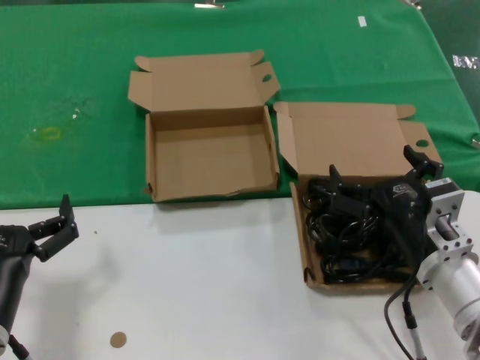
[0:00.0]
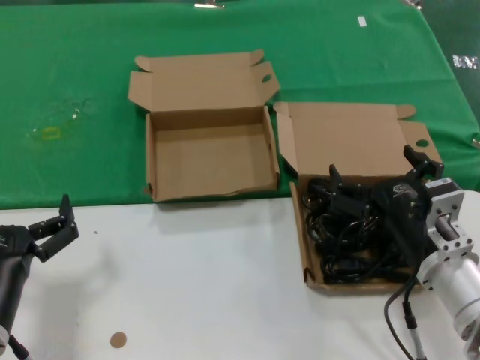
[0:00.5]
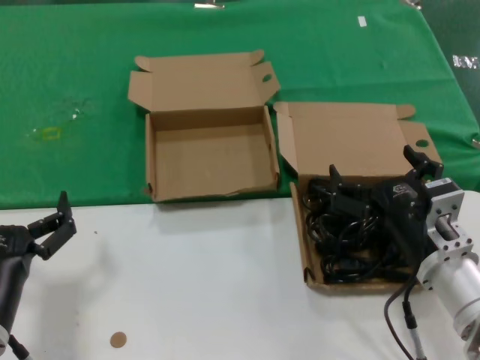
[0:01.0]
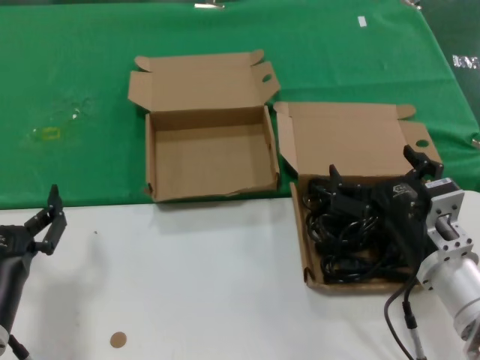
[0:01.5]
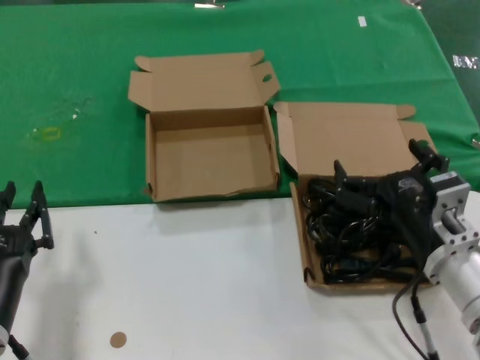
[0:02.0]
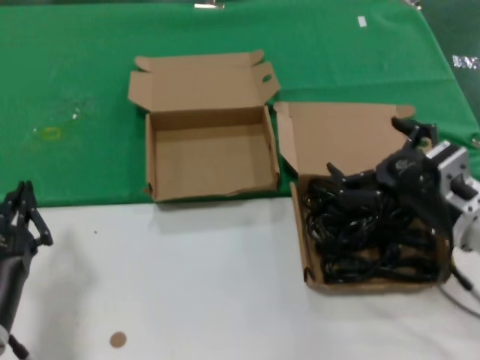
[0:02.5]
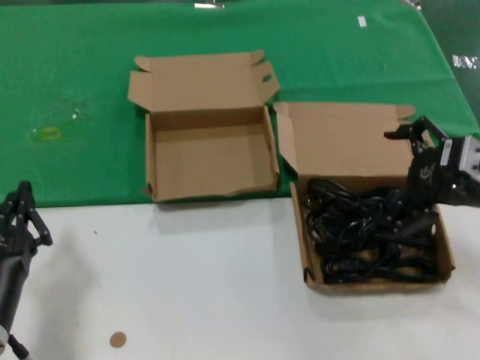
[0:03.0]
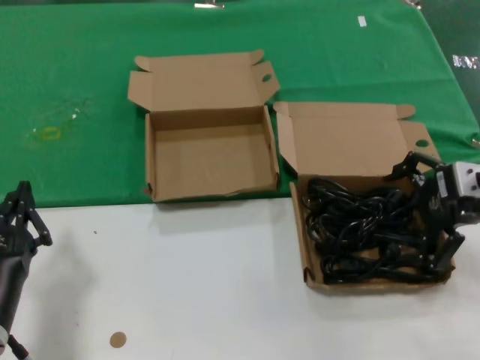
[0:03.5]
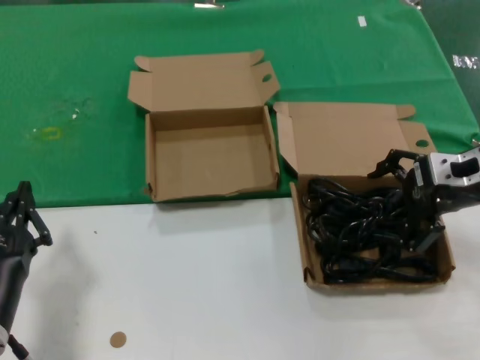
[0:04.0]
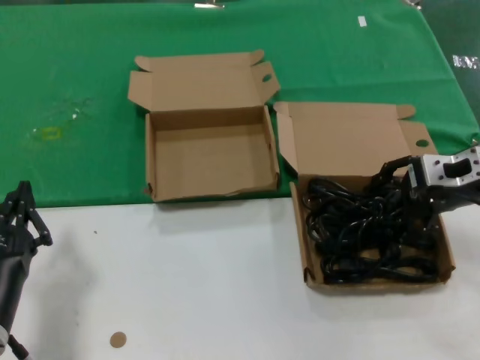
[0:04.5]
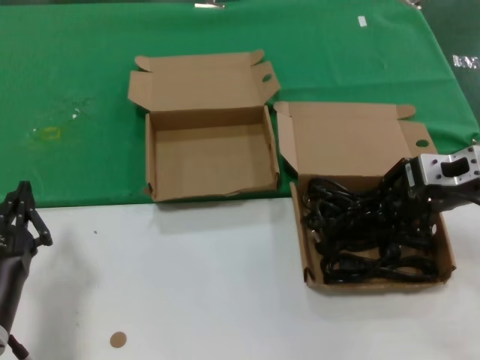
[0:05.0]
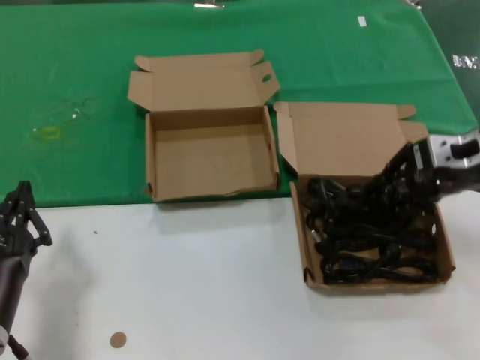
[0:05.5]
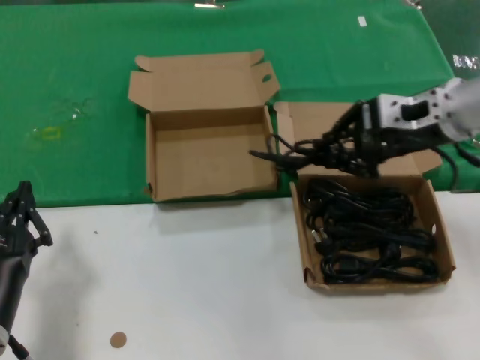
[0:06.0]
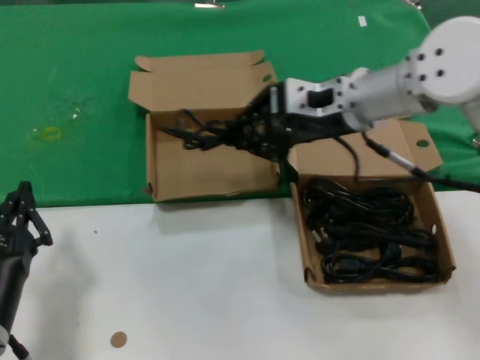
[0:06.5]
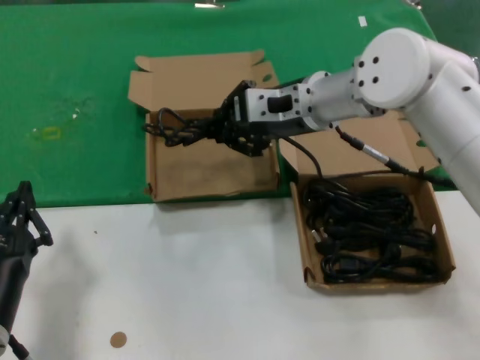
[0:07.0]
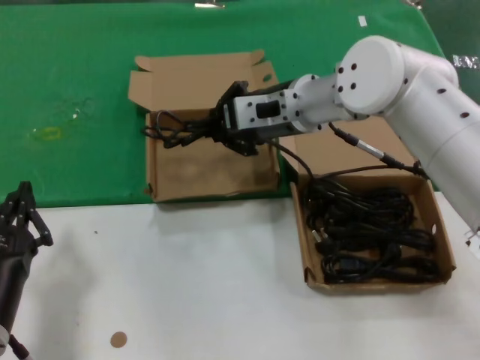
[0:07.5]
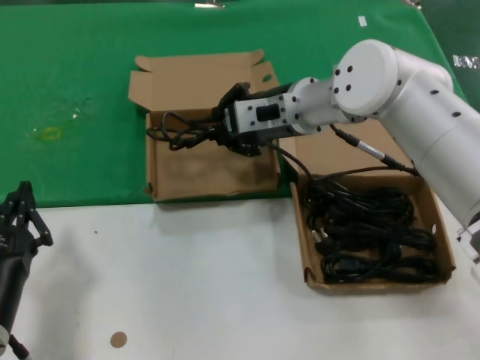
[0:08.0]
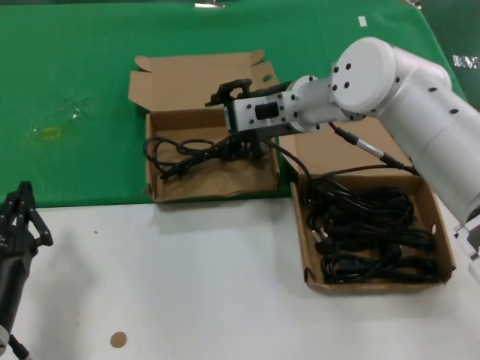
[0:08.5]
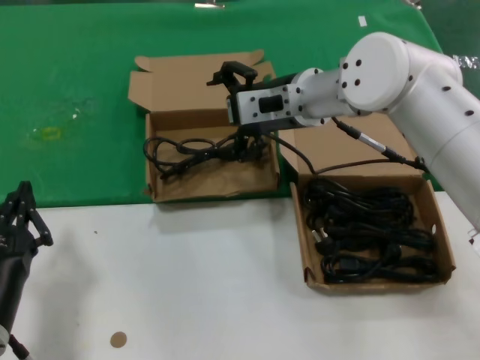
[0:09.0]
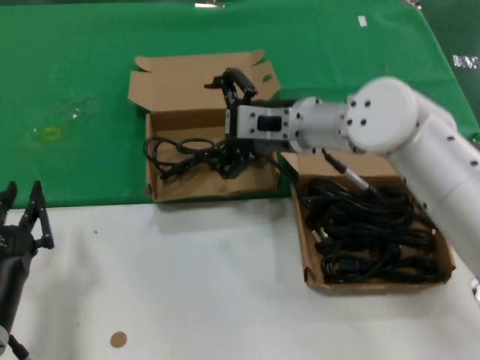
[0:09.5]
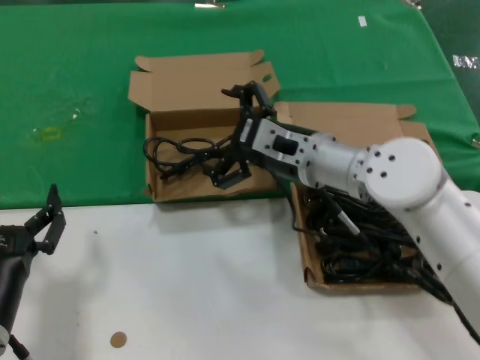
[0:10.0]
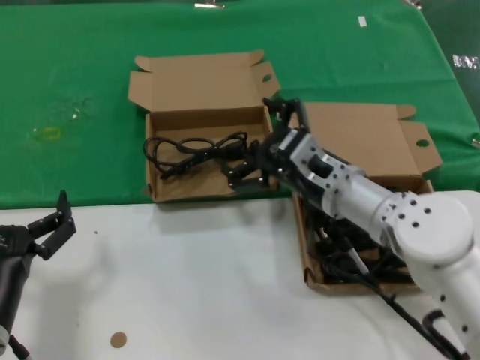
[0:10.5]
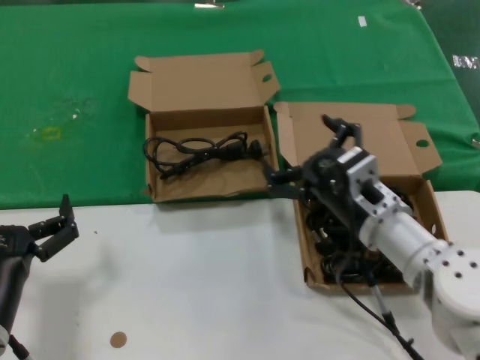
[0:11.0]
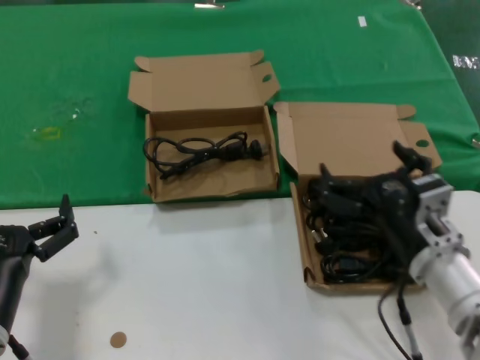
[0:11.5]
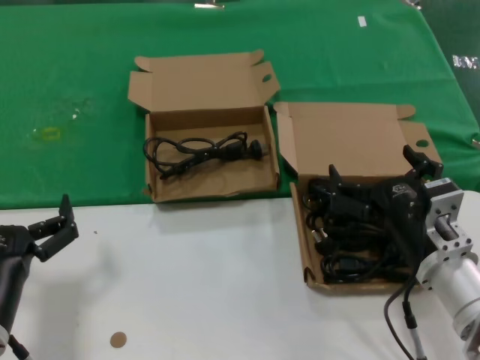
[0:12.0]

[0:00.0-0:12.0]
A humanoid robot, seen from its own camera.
Task of the whole recording: take the parts from the box containing them and put them into an empty box.
Step, 0:00.0 to 0:04.5: Grasp the data cable.
Step, 0:05.0 to 0:08.0: Place the data cable in the another box.
0:00.0 to 0:02.0: Both hands stay about where they are.
0:02.0 to 0:04.0: The right hand shifts about 20 cm upward, forward and to the right.
0:04.0 to 0:06.0: The right hand moves to the left and upward, some 10 cm.
0:06.0 to 0:08.0: The right hand goes some 20 cm to the left and forward.
0:08.0 to 0:10.0: The right hand is displaced downward and backward by some 10 cm.
0:10.0 to 0:12.0: The right hand is displaced backward, to the right and downward by roughly 20 cm.

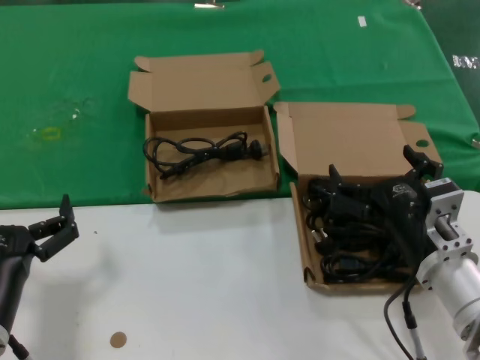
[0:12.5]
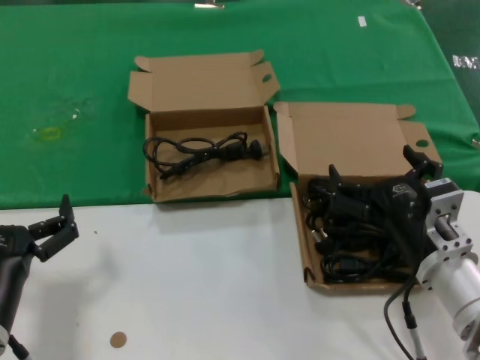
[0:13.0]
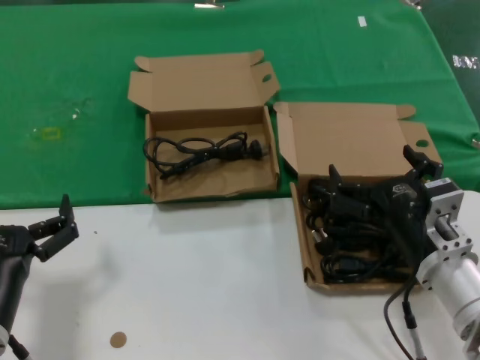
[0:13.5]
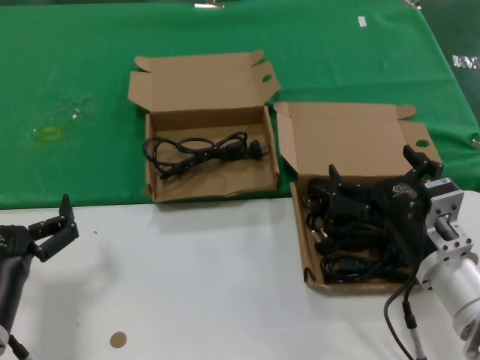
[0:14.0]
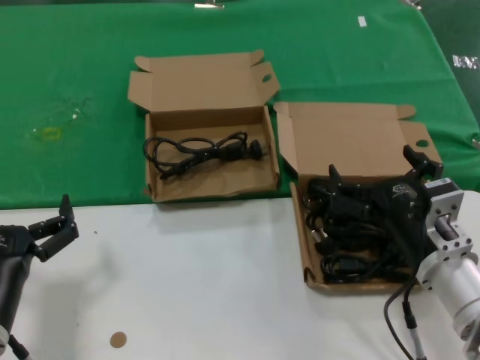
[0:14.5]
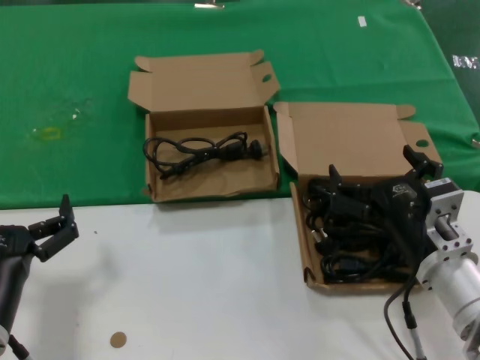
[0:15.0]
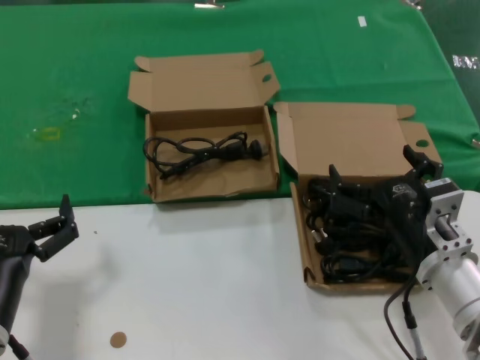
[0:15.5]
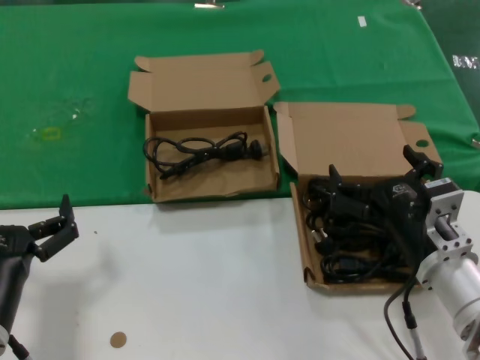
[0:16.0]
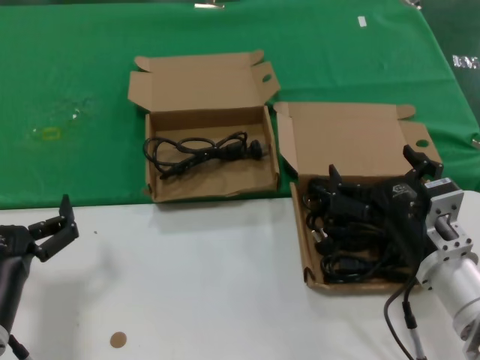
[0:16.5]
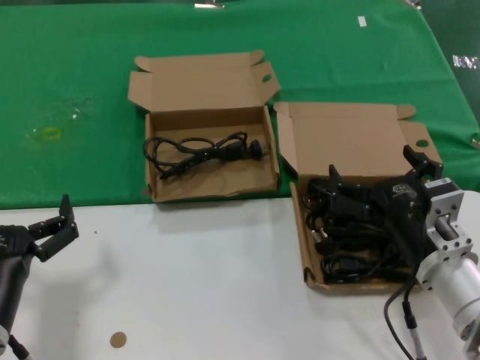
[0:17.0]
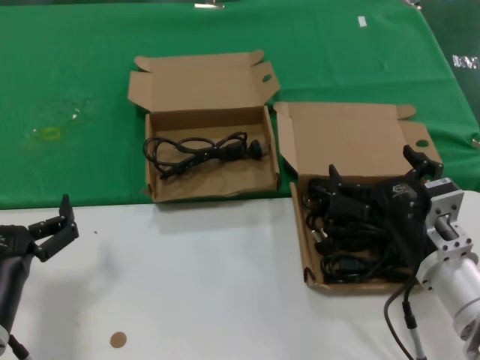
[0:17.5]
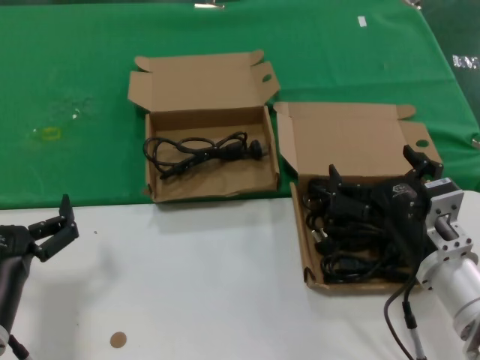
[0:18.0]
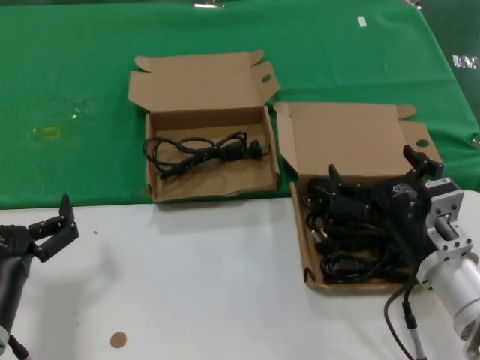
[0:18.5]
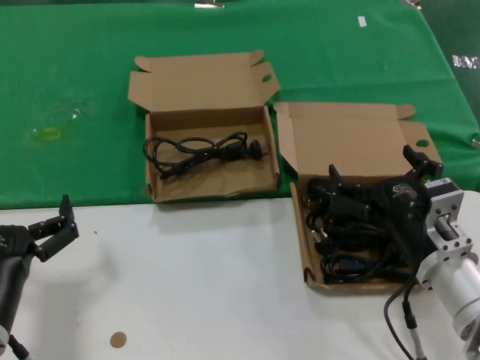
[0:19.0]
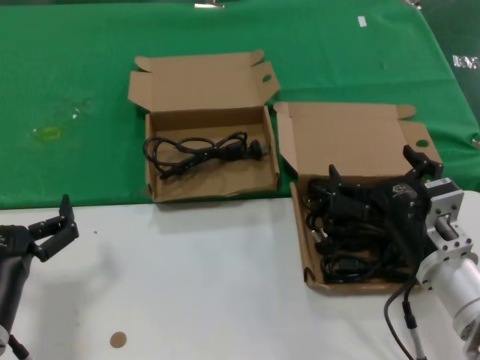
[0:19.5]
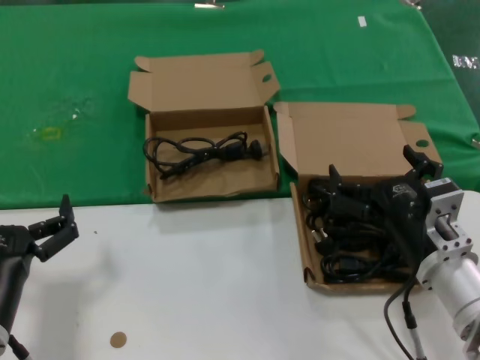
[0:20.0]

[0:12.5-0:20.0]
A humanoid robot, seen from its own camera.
Task of the whole recording: take the parts from the box containing them and put them into an empty box.
0:12.5 to 0:20.0: The two hands keep their place.
